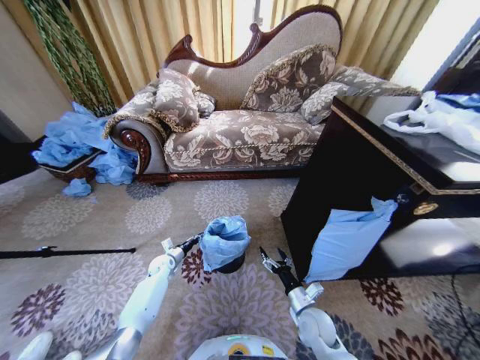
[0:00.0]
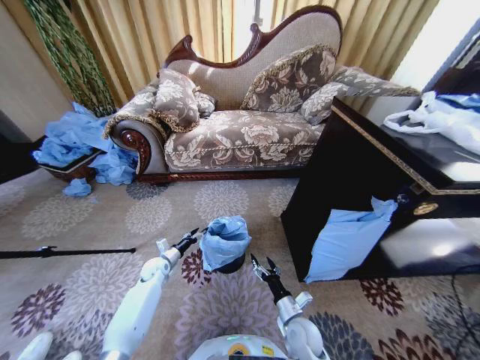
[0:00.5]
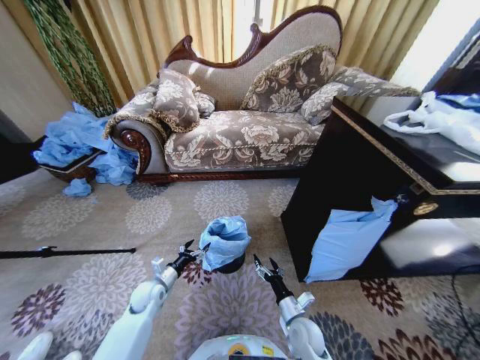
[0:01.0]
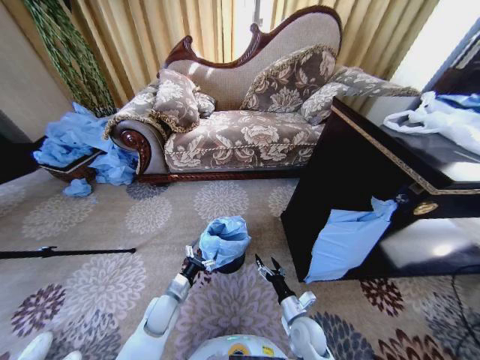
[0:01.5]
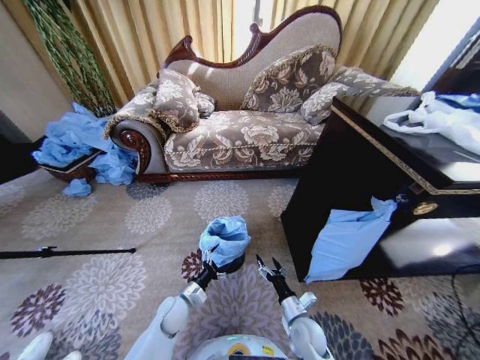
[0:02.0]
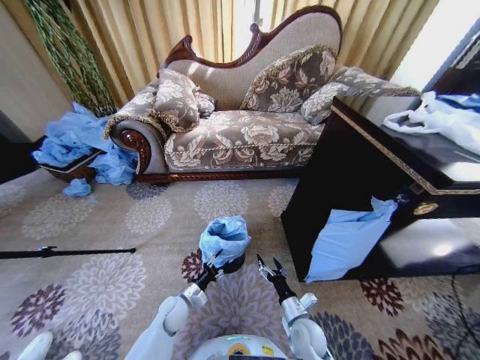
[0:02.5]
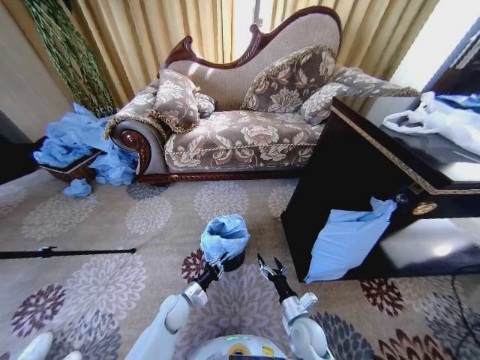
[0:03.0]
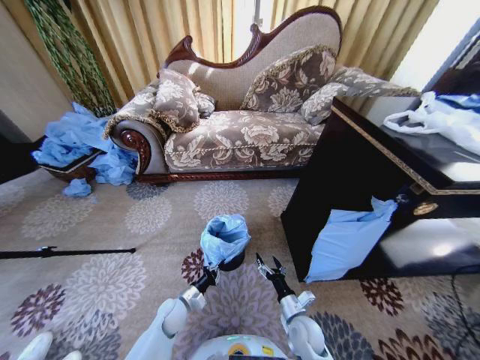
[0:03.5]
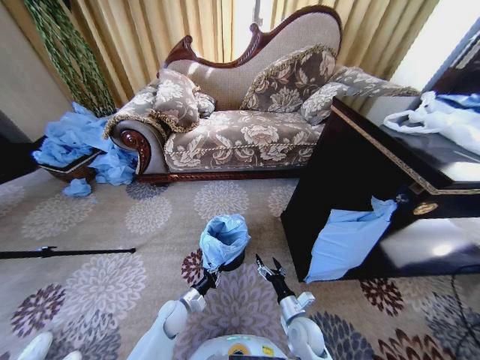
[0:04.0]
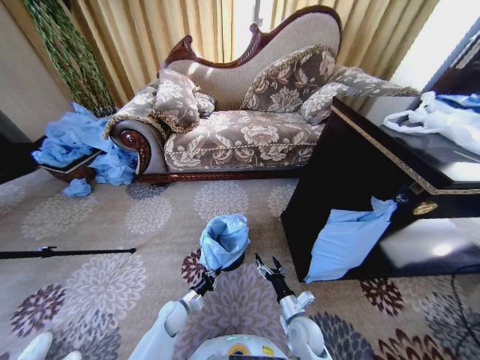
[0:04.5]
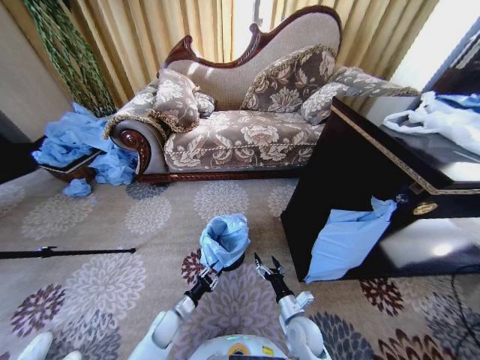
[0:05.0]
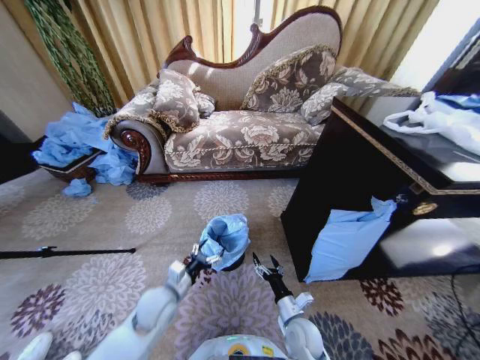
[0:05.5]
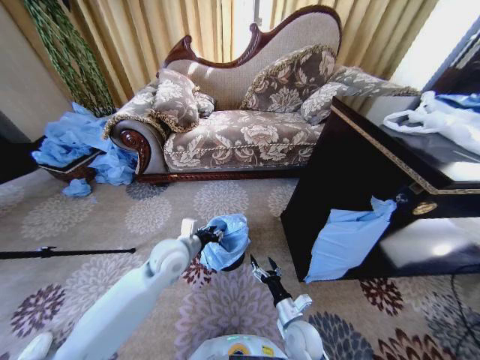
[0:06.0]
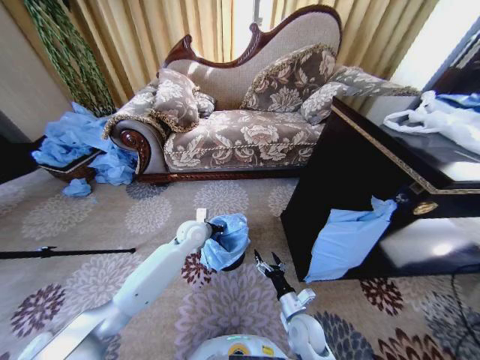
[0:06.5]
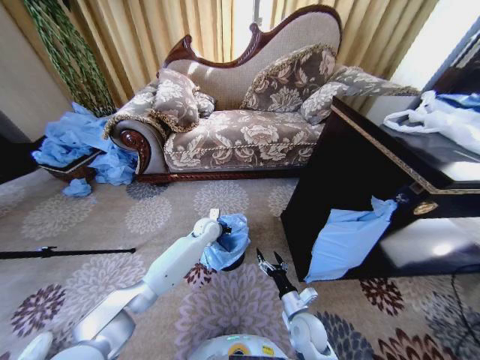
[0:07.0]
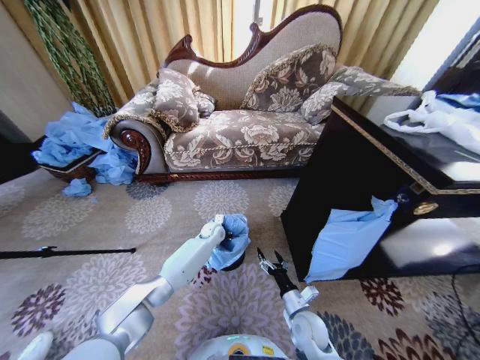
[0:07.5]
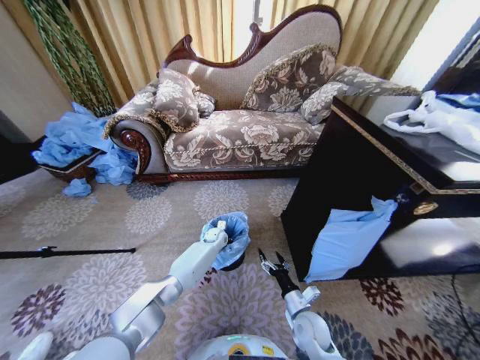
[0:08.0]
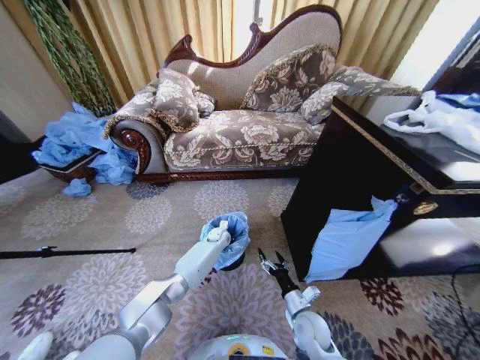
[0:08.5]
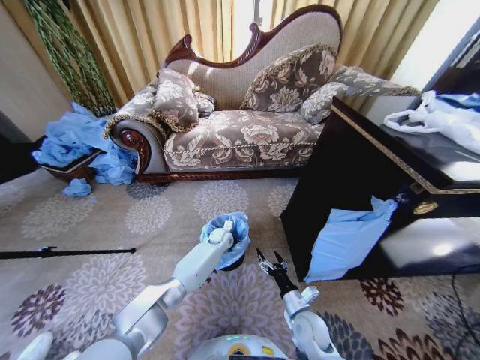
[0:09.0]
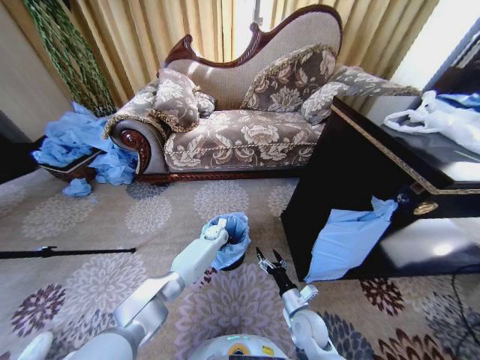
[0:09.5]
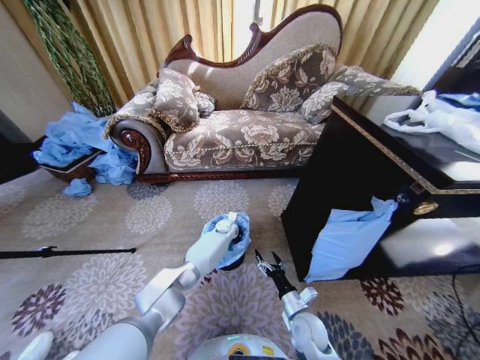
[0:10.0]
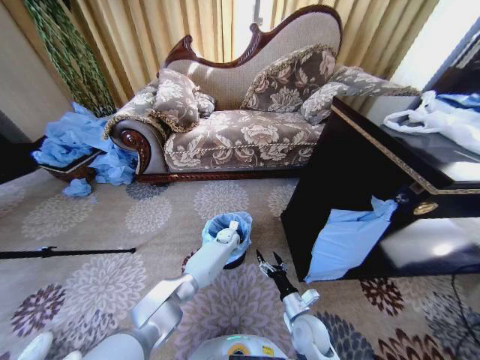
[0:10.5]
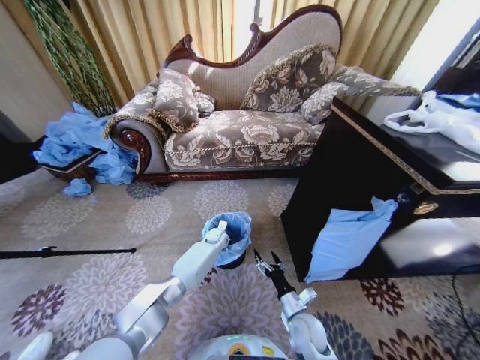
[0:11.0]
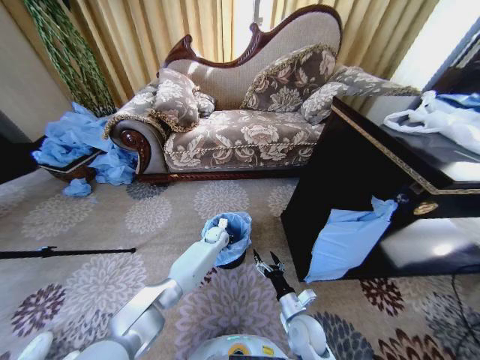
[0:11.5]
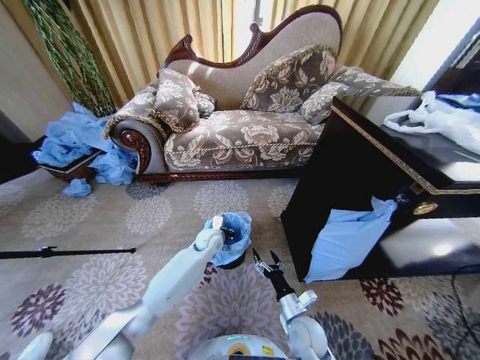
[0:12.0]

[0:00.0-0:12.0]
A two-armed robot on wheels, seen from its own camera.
Task of the whole recording: Place a garbage bag over the trash bin.
0:00.0 to 0:02.0: The left gripper shifts about 20 cm backward and to the right, and opens its fingers.
0:02.0 to 0:04.0: The left gripper changes place by roughly 5 cm, and closes its fingers.
0:04.0 to 0:06.0: The left gripper heads upward, covering roughly 30 cm, and opens up.
0:06.0 to 0:08.0: The left gripper goes about 30 cm downward and forward, and closes its fingers.
0:08.0 to 0:10.0: The left gripper shifts by roughly 5 cm.
0:10.0 to 0:12.0: The left gripper is displaced backward, upward and to the left by some 15 cm.

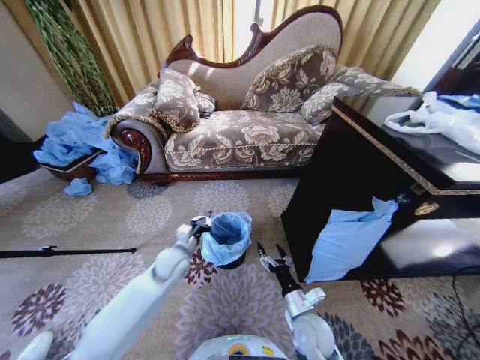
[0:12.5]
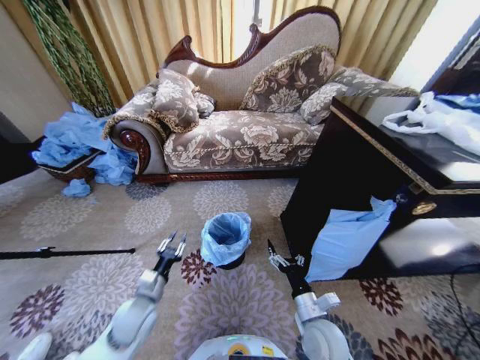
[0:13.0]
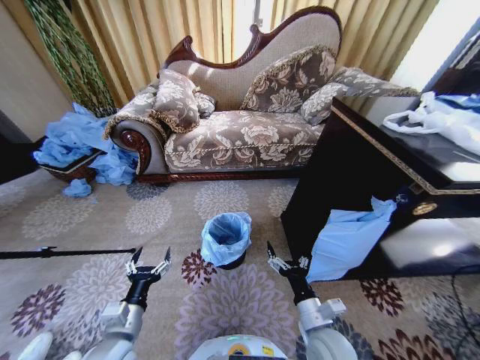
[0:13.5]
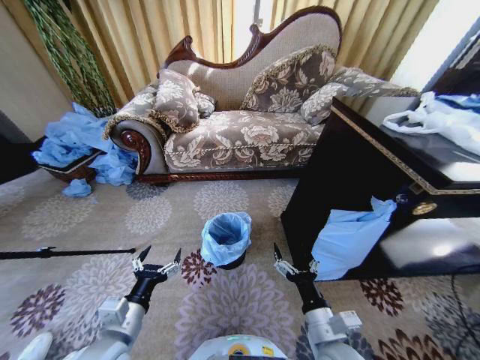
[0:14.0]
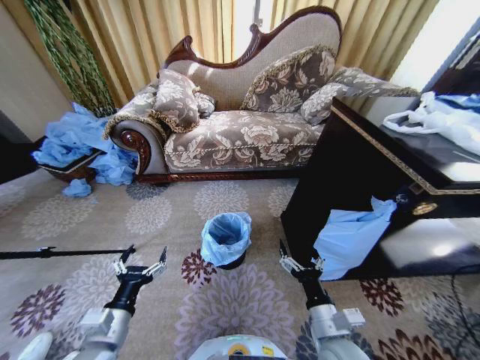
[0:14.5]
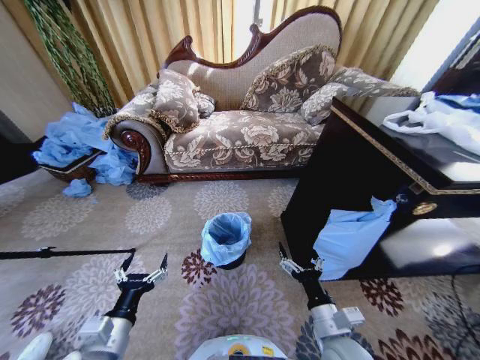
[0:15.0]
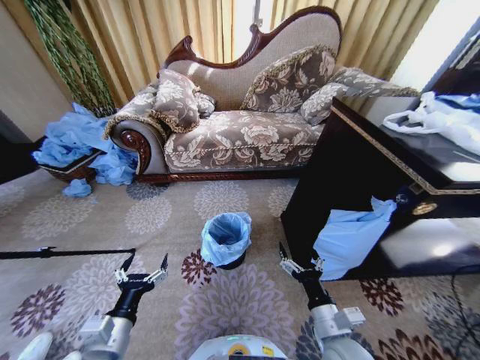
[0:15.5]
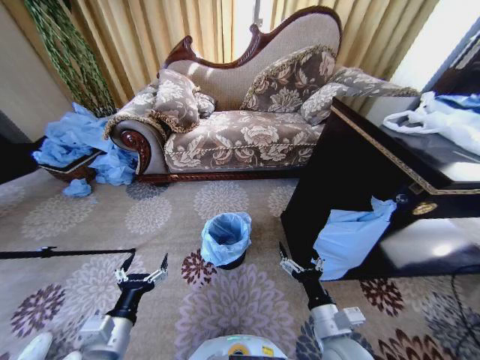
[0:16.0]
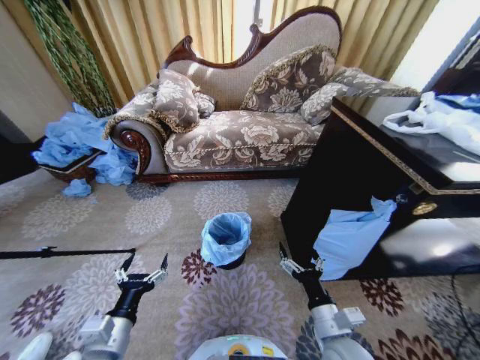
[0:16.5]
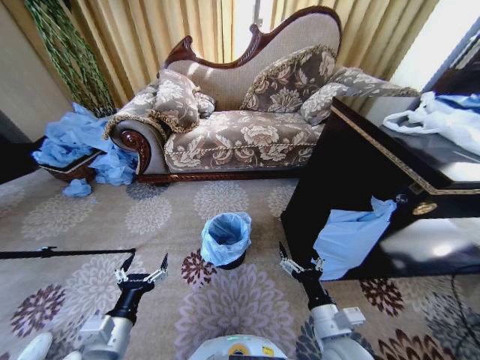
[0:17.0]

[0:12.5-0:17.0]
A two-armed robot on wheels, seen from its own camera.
Task of the whole recording: Place a garbage bag over the trash bin.
0:12.5 to 0:14.5: The left gripper goes approximately 25 cm backward, and opens up, while the right gripper heads upward and backward, covering approximately 10 cm.
0:14.5 to 0:17.0: Both grippers stay put.
